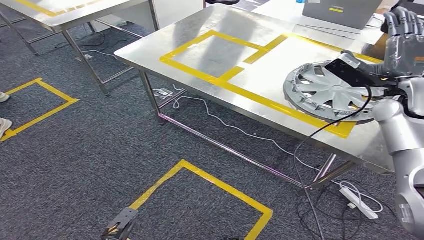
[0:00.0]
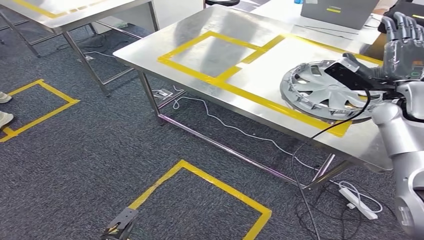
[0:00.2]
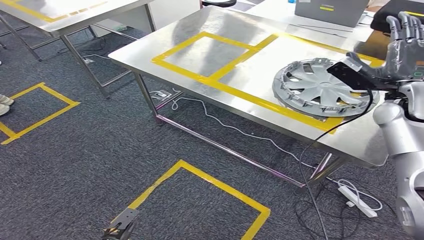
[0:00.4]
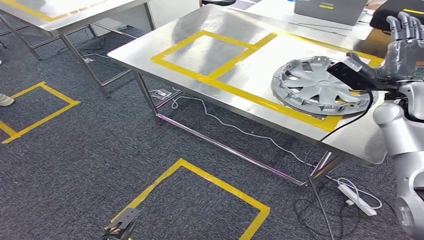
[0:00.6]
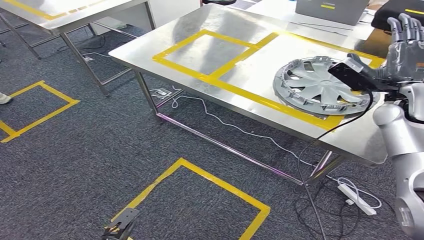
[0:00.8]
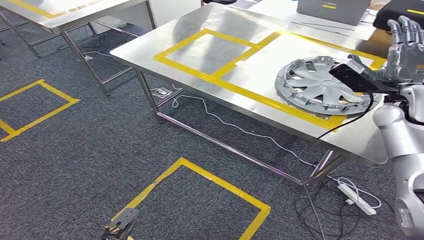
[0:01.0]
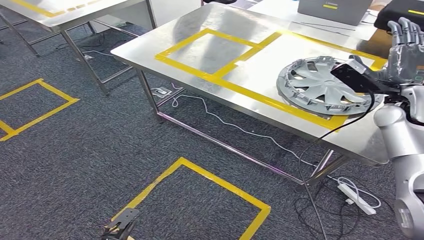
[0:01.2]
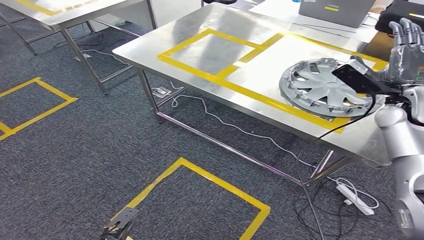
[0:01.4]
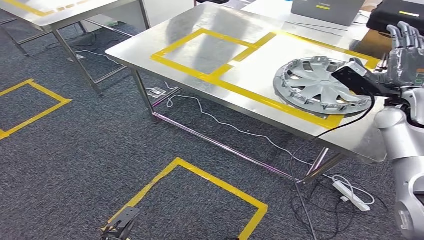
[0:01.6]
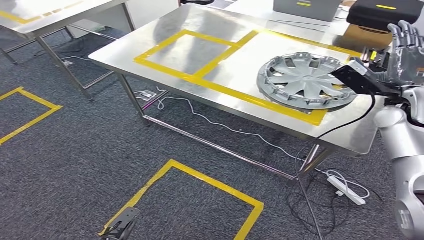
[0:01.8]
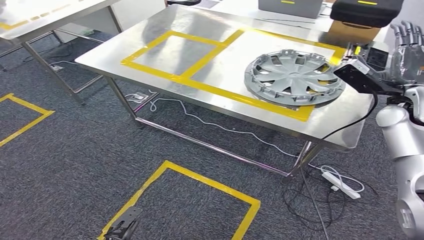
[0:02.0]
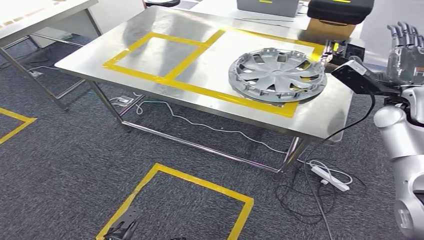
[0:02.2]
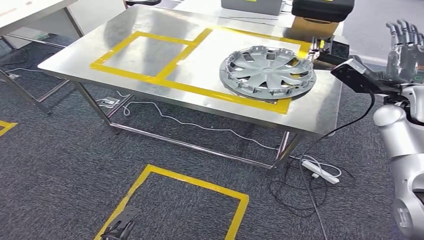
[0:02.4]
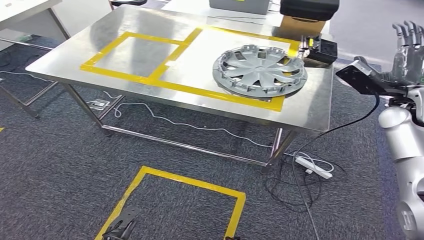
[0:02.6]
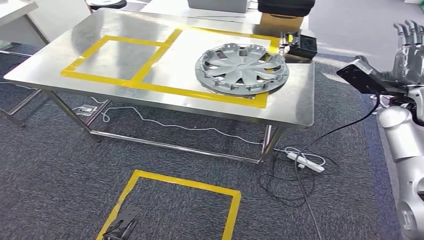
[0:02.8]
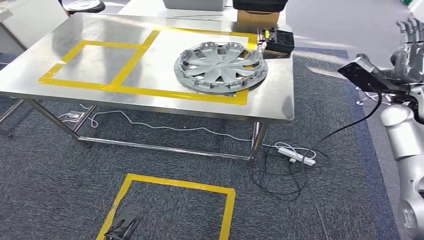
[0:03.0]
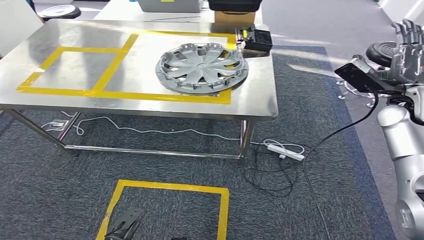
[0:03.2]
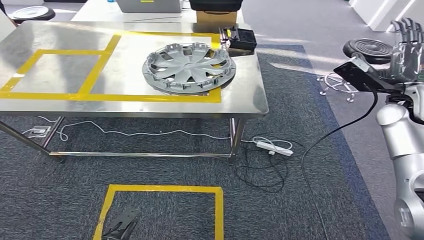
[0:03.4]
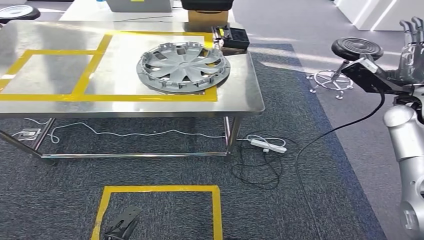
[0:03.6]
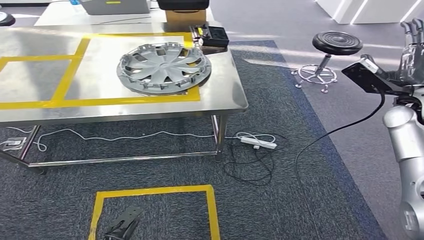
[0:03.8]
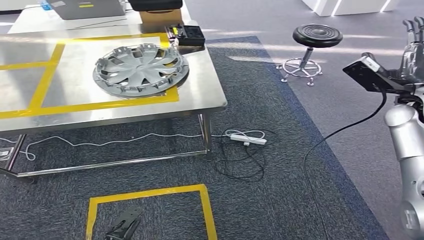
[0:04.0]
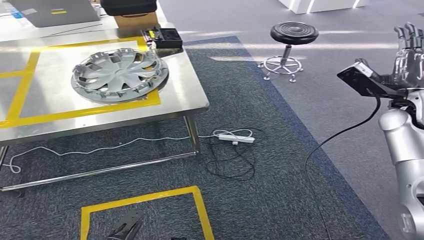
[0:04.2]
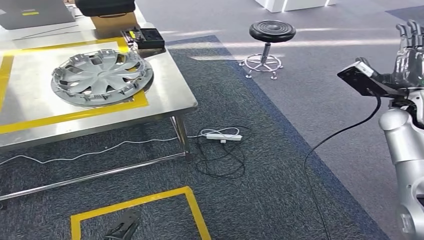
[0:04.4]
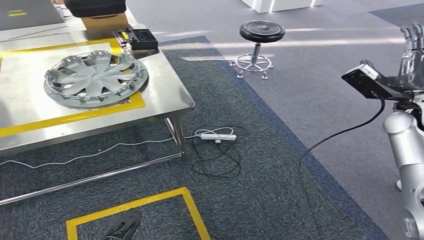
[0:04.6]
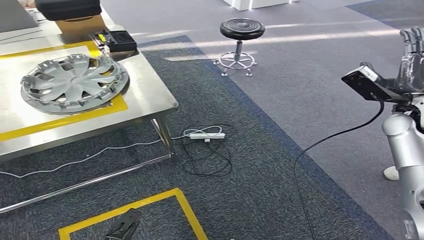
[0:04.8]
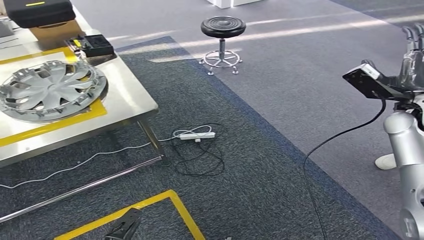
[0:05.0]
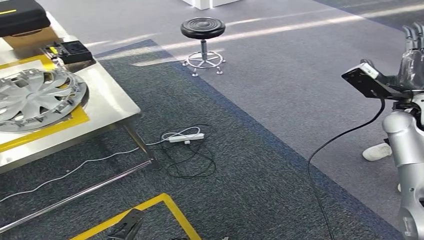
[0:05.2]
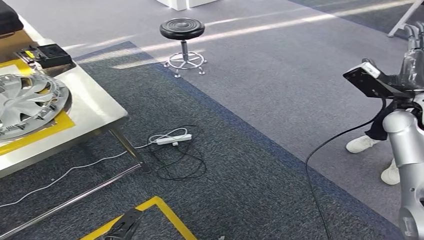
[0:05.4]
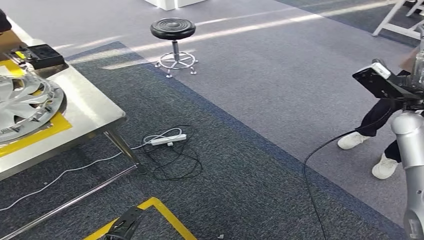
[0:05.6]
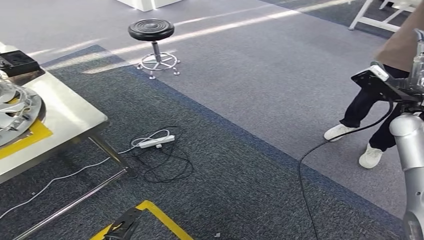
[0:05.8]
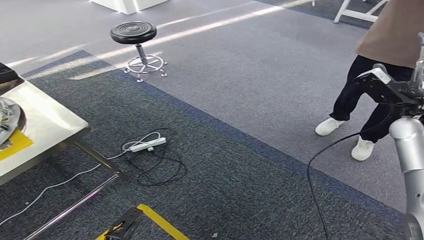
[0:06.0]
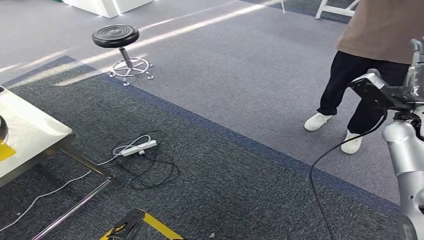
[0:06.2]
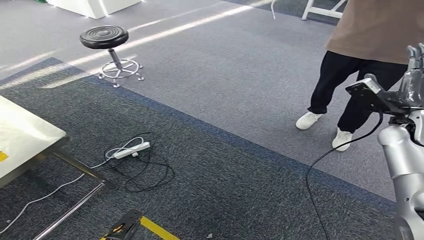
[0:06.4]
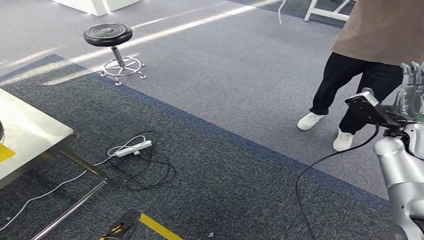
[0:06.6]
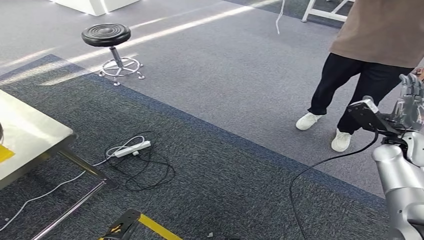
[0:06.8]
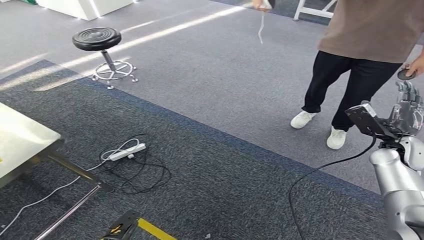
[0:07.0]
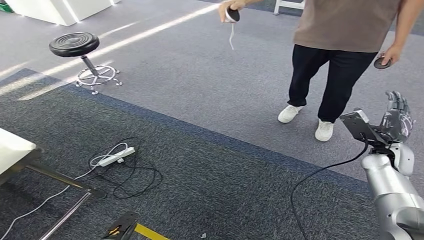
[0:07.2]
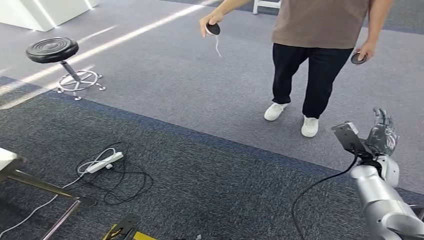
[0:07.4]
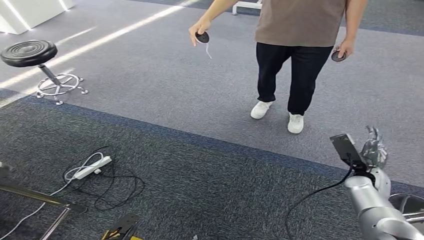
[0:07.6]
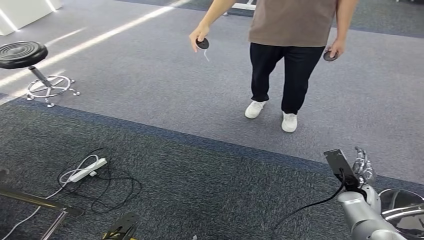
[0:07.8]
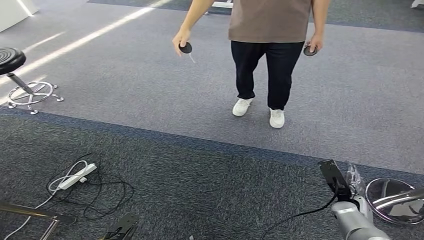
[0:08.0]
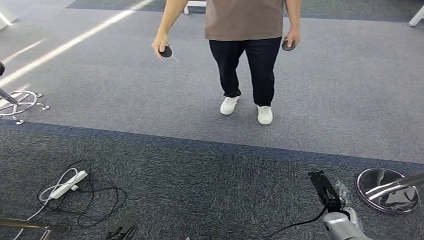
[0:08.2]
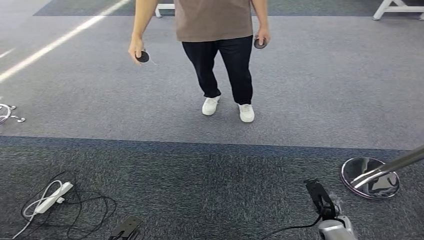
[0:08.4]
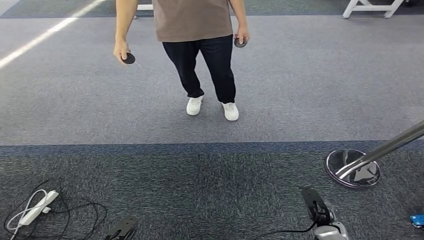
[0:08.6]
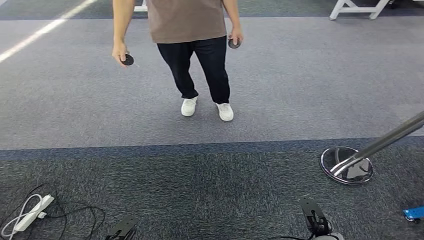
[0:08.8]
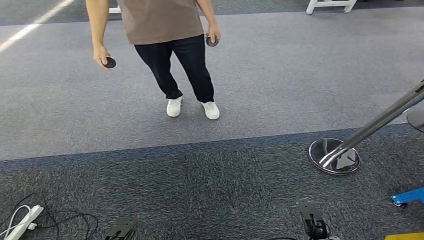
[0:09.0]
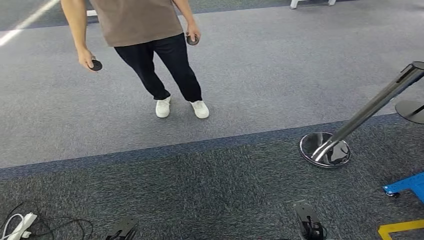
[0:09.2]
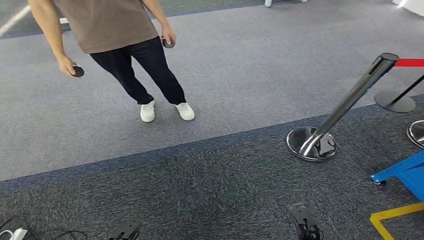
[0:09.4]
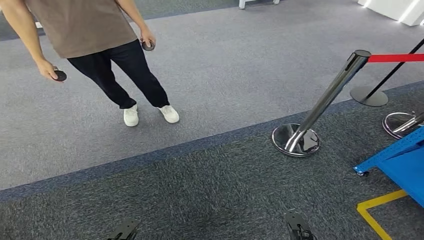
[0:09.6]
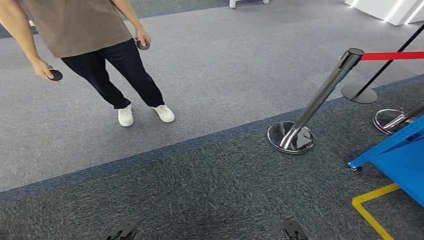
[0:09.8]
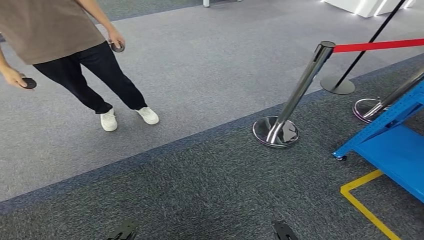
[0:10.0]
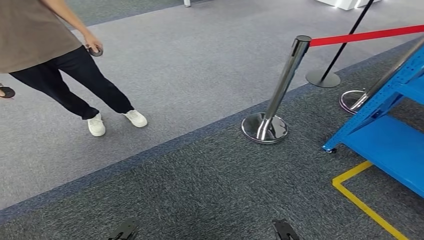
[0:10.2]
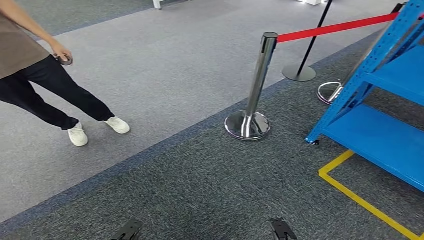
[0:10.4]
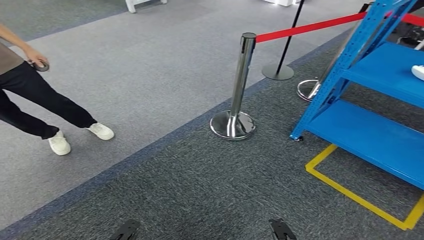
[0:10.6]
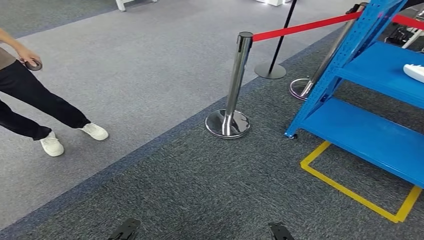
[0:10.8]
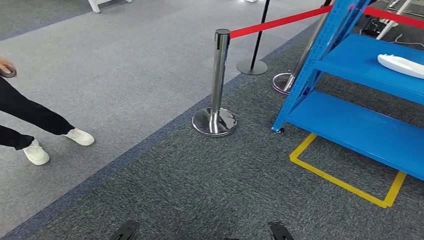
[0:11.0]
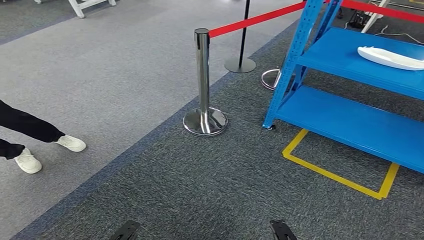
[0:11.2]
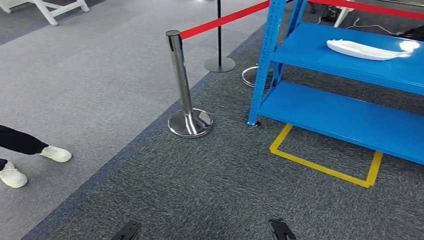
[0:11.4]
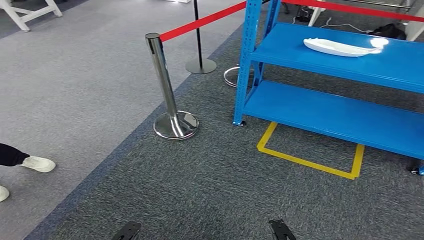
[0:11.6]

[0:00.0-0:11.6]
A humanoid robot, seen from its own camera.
0:00.0 to 0:01.4: The hands make only small movements.

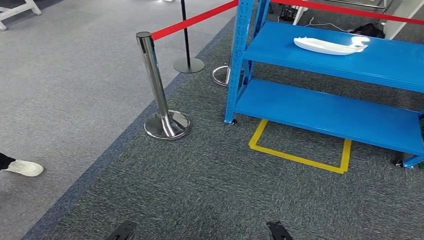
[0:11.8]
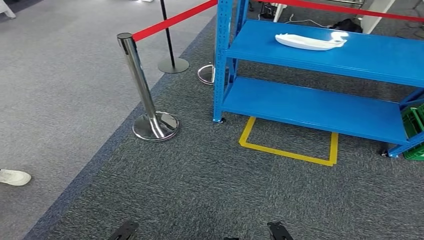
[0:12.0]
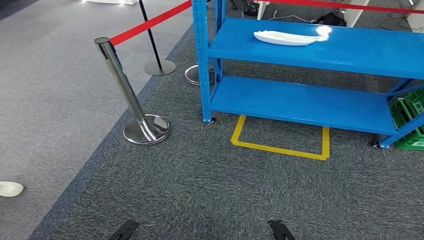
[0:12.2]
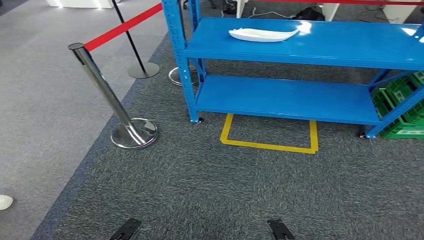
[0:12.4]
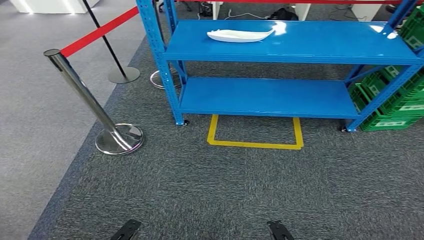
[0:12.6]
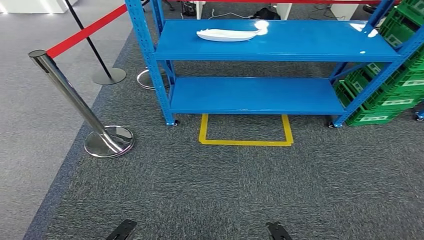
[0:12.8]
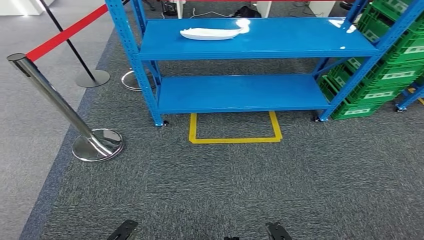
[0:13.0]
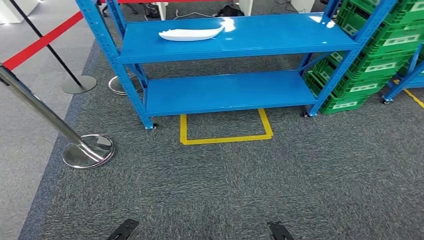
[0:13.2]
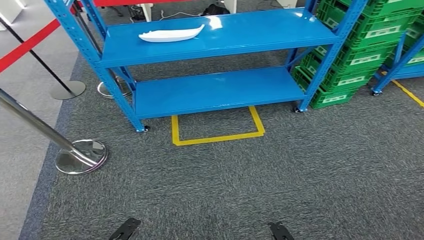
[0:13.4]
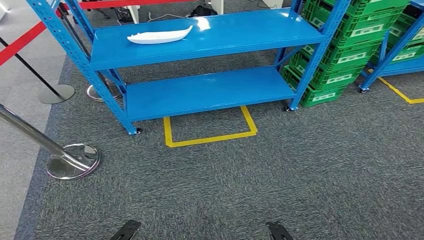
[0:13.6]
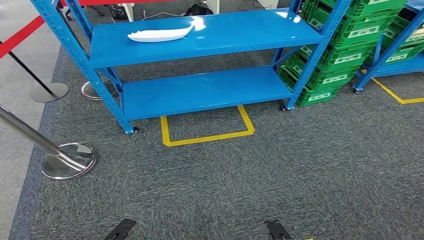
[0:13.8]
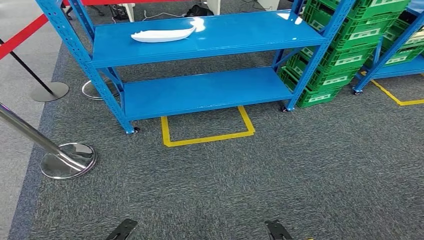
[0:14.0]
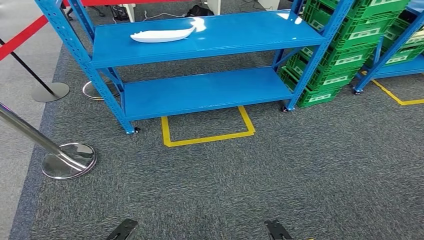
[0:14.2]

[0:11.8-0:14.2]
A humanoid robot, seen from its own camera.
Step, 0:11.8 to 0:14.2: Move to the initial position at the workbench.
